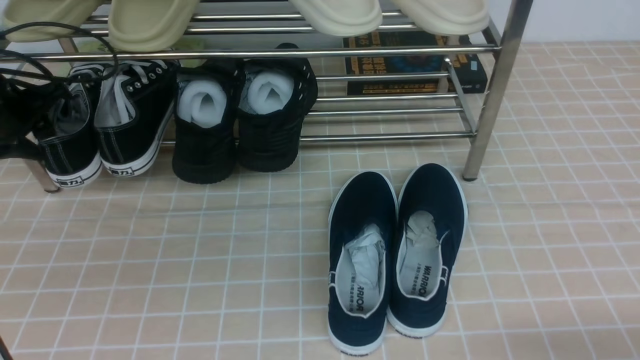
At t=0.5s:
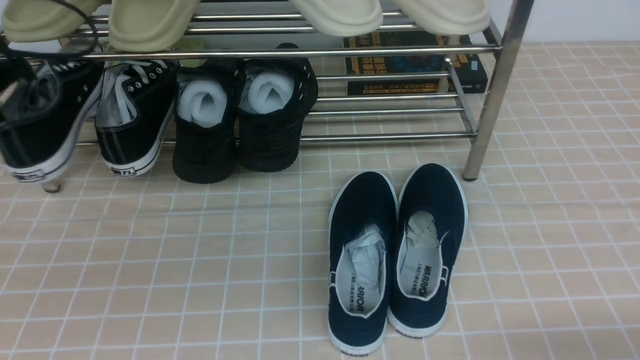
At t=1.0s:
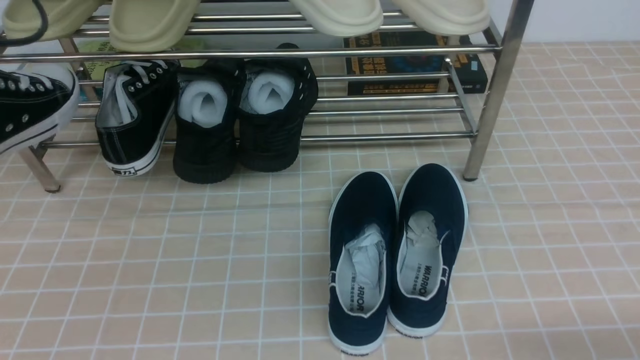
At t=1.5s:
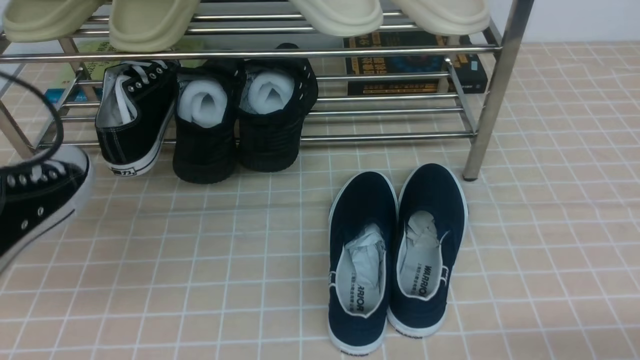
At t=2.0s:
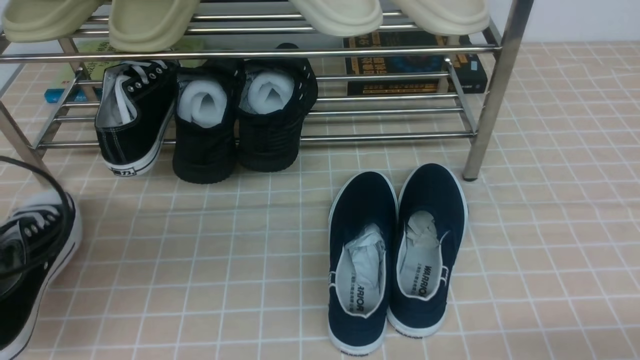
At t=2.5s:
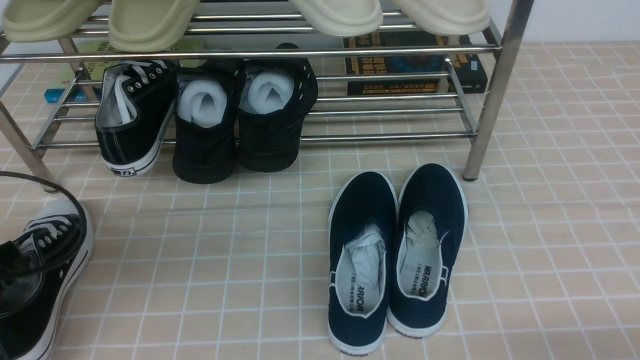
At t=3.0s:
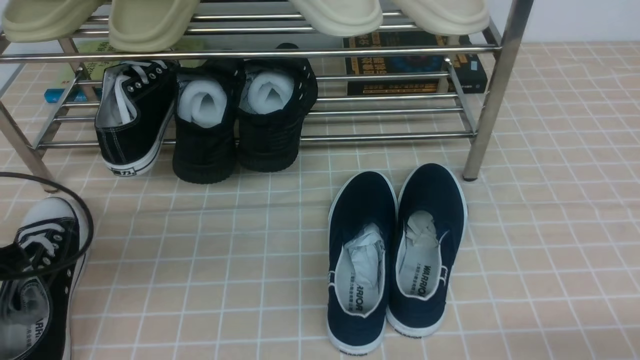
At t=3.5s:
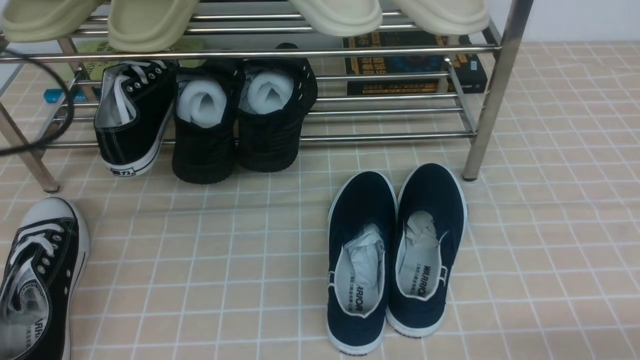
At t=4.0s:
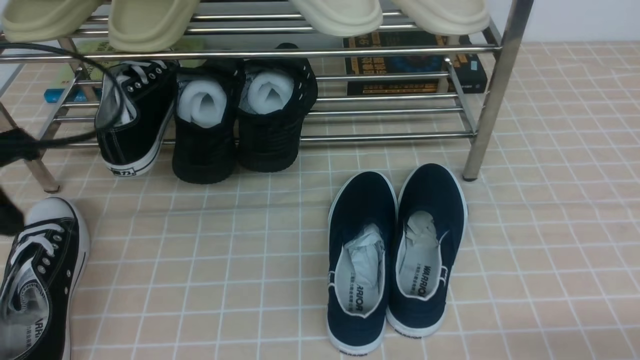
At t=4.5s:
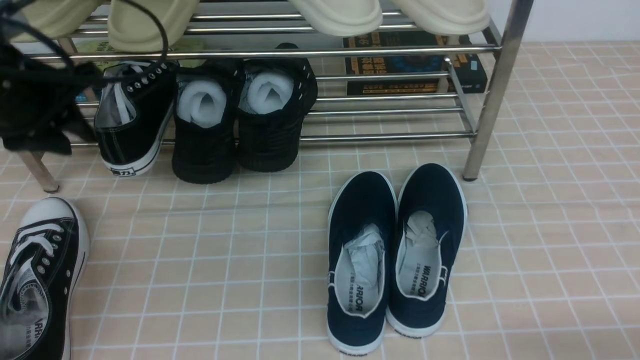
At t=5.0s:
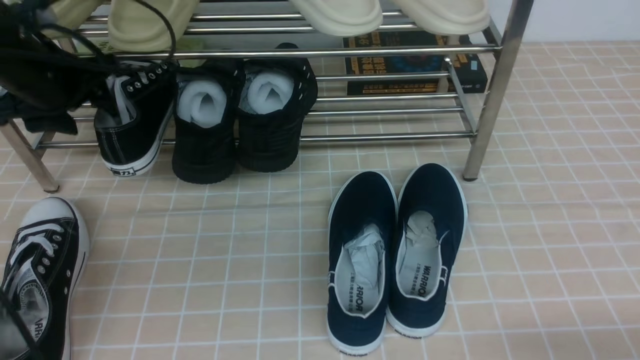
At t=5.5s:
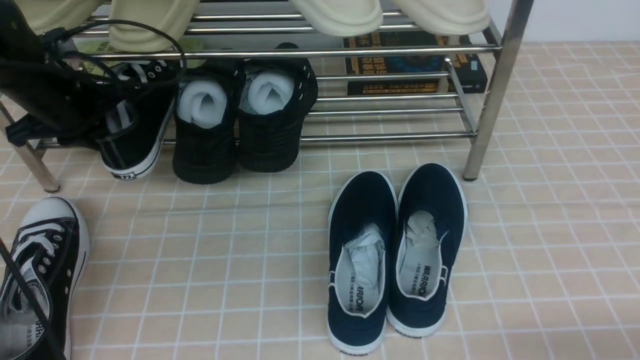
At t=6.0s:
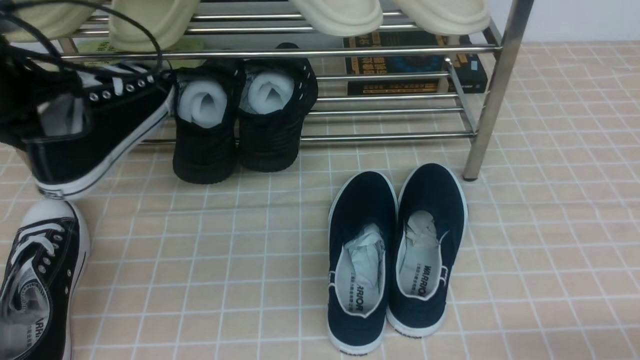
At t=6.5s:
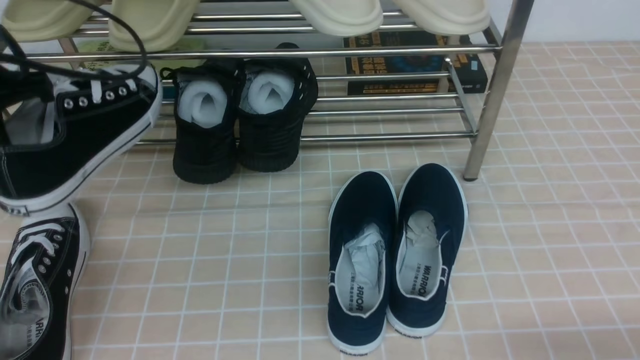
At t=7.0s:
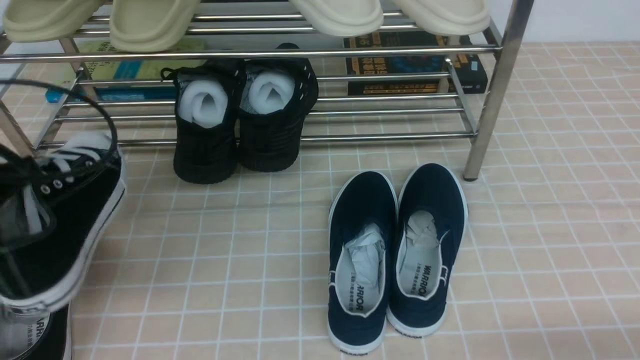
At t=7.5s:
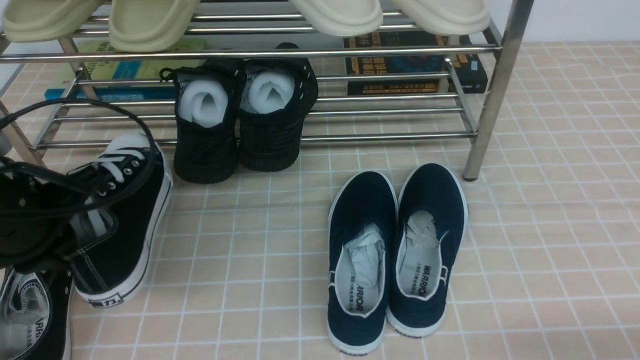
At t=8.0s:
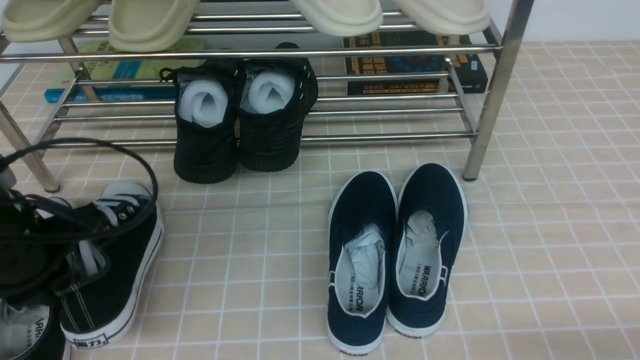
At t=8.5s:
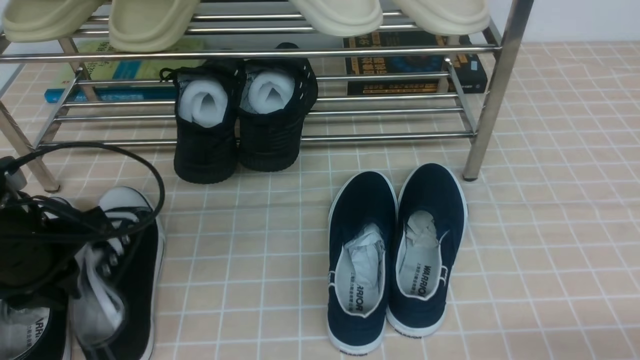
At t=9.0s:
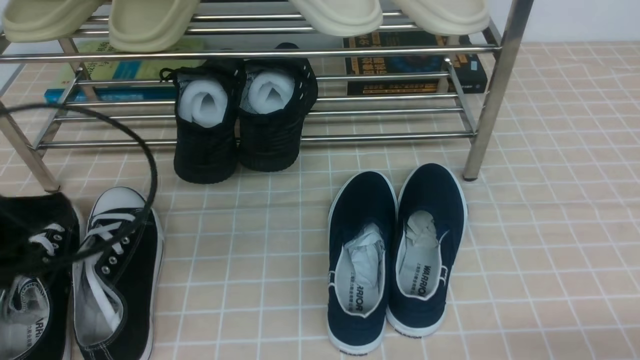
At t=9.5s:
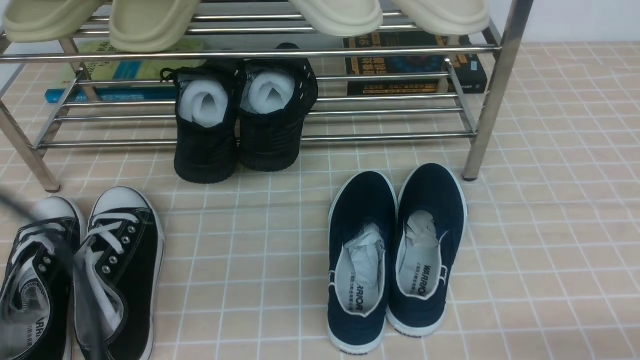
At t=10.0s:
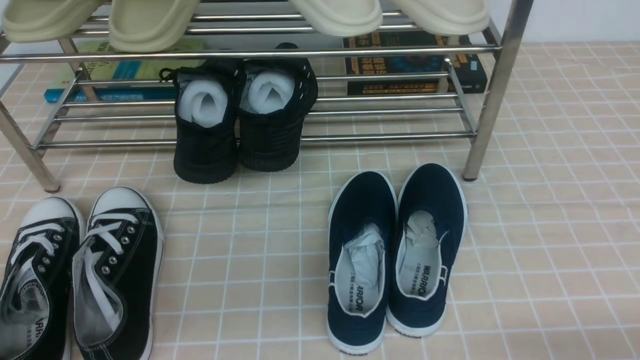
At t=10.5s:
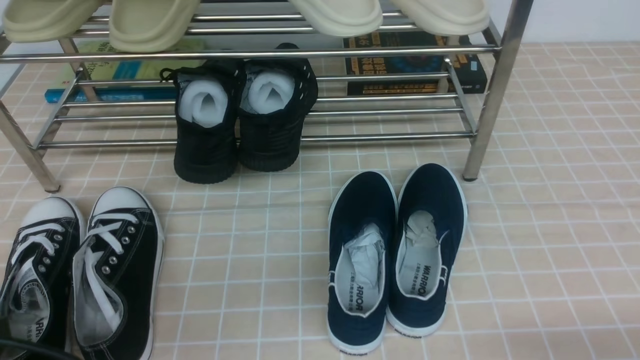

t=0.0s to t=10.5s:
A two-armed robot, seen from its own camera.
Step, t=0.5s to t=3.0s: Use your left arm to remove the clamped shoe from the shoe rack and put it down.
Step, t=3.5s to t=5.5s: use the left arm to clamp a shoe on the left side of the shoe rack.
Step, t=6.0s to t=8.5s: Use your left arm to remove the clamped shoe from the shoe rack and put it down.
t=0.0s to t=2.0s: The left gripper is displaced backward by roughly 20 cm, and closes up.
t=2.0s to t=4.0s: The left gripper is displaced upward and forward by some 10 cm, and opens, then closes again.
t=4.0s to t=6.5s: The left gripper goes forward and returns, about 15 cm each way, and opens, then closes once more.
t=6.5s to t=8.5s: The left gripper travels downward and backward by some 15 cm.
t=8.5s to t=10.5s: The left gripper goes some 20 cm backward.

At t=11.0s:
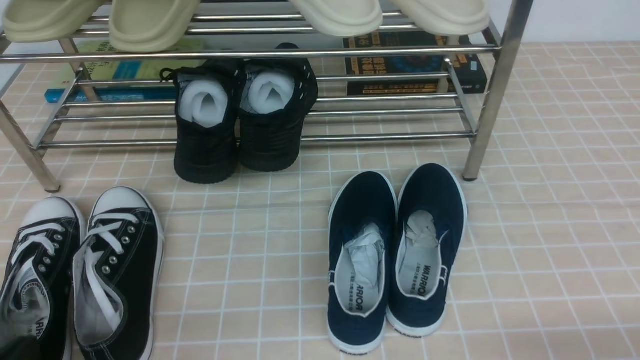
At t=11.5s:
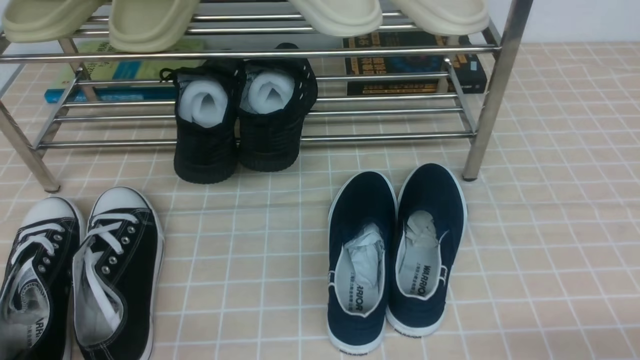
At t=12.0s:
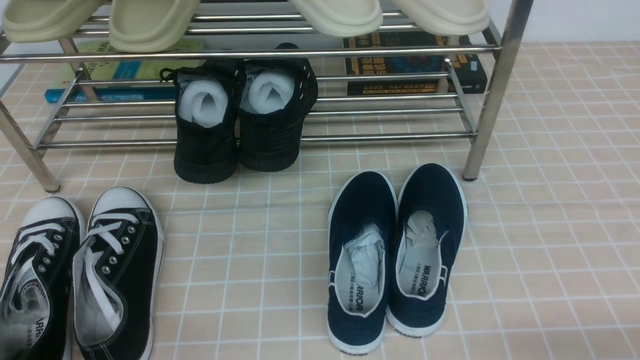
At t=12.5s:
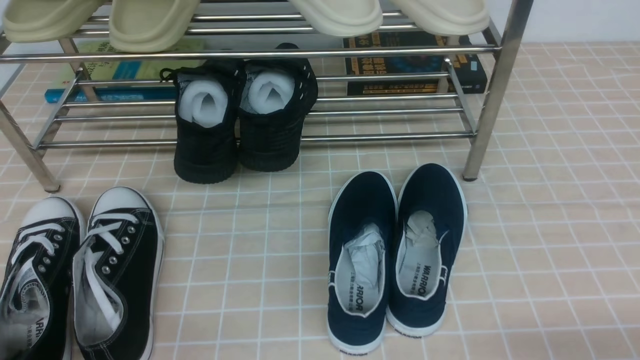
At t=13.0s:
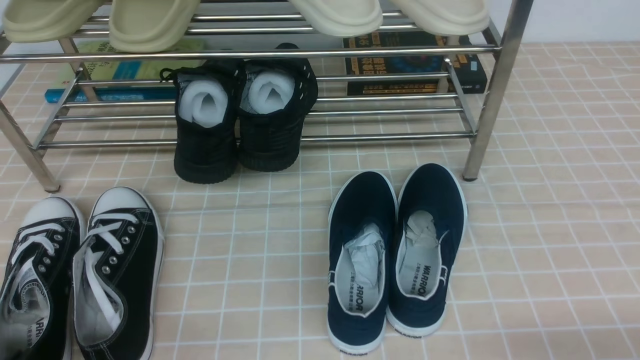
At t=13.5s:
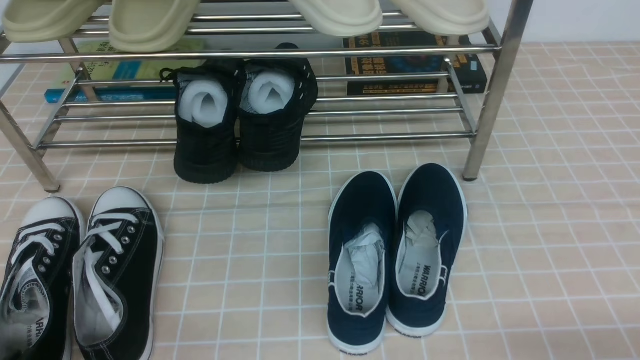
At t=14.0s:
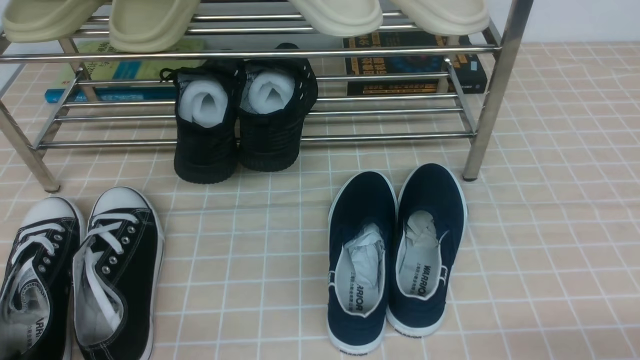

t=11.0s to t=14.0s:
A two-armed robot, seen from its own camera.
t=12.5s to t=14.0s: Both grippers stay about where they are.

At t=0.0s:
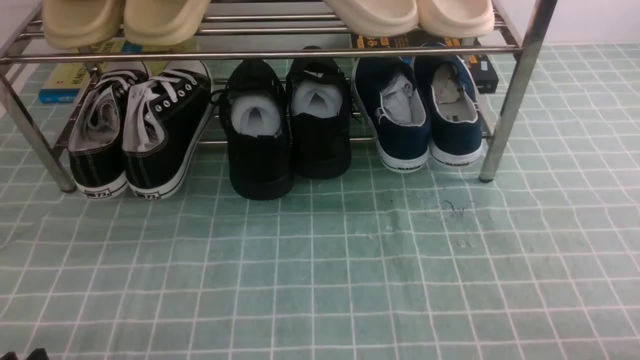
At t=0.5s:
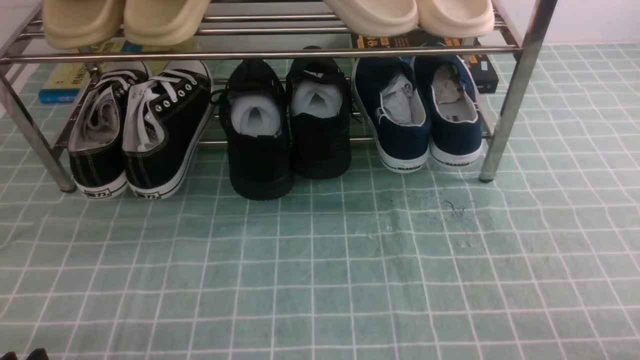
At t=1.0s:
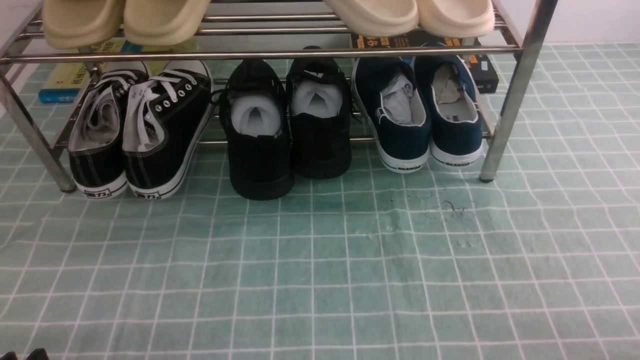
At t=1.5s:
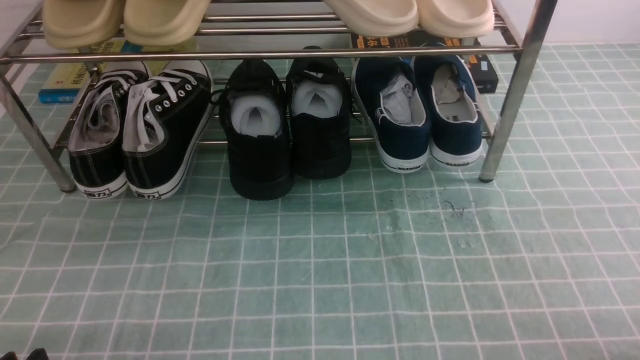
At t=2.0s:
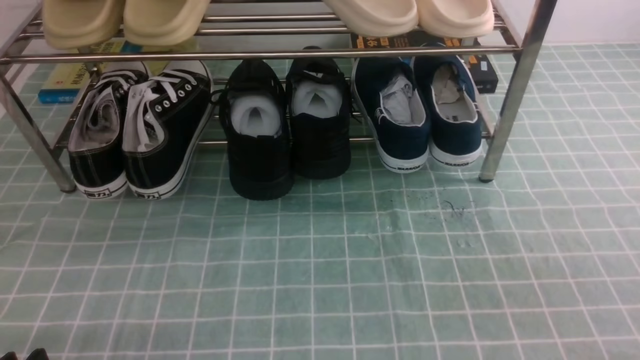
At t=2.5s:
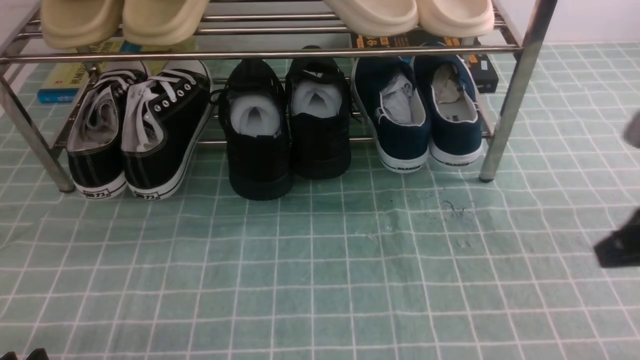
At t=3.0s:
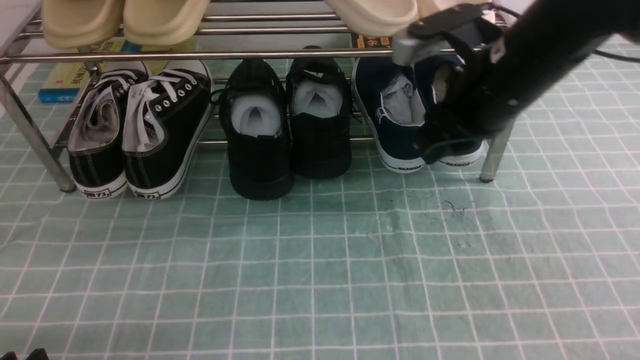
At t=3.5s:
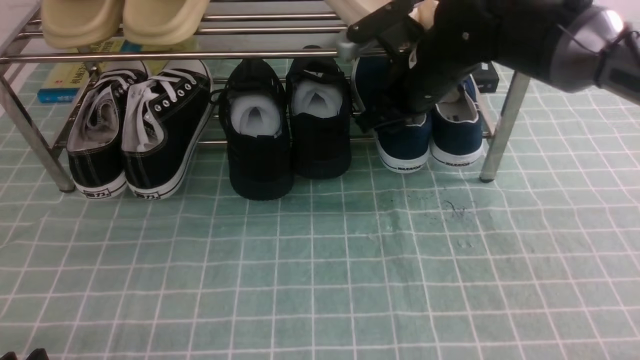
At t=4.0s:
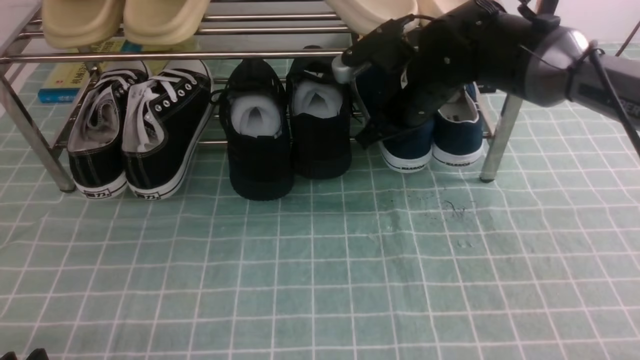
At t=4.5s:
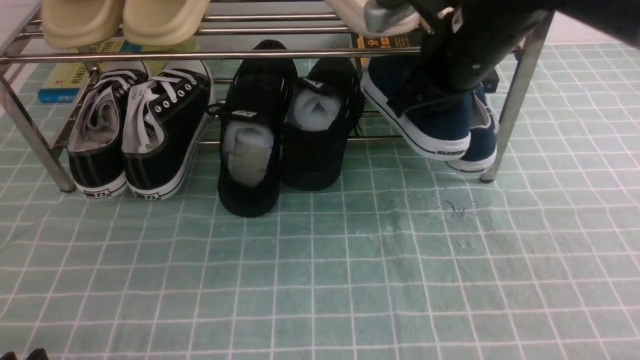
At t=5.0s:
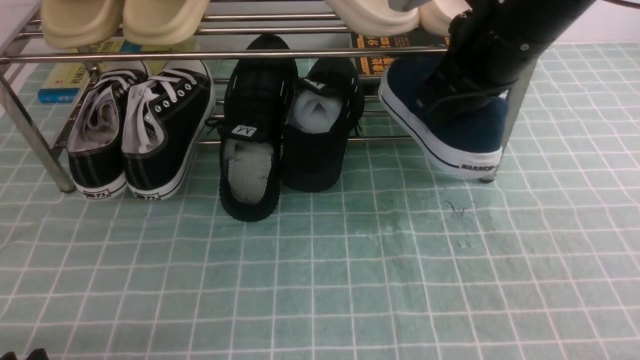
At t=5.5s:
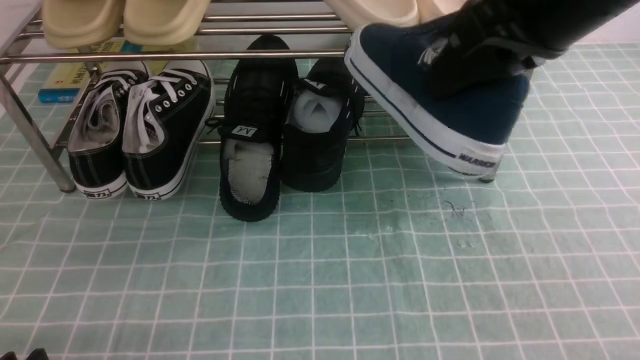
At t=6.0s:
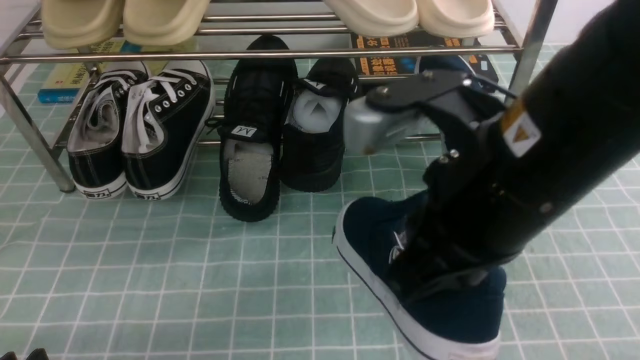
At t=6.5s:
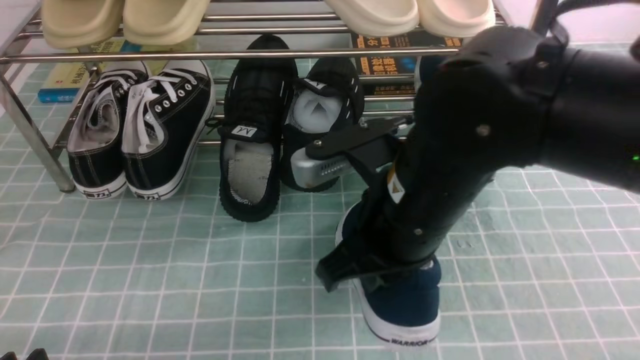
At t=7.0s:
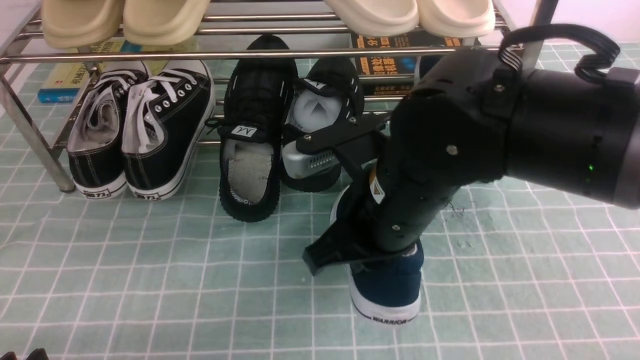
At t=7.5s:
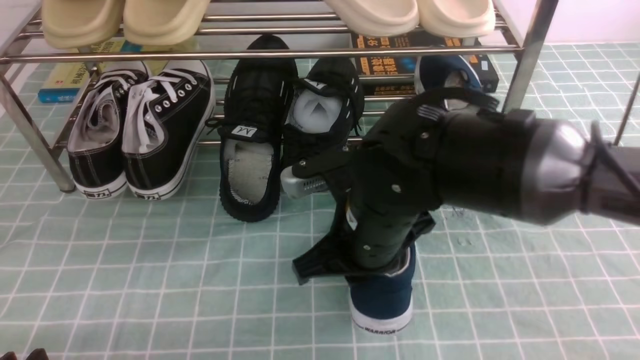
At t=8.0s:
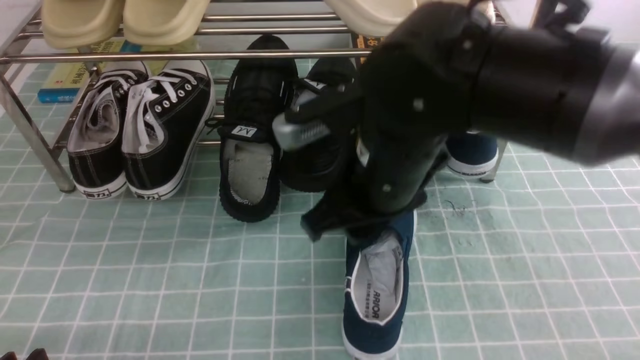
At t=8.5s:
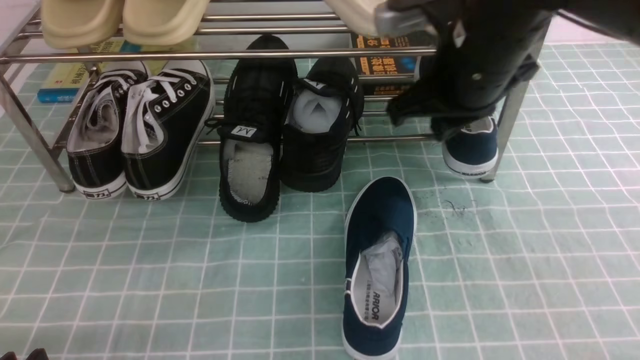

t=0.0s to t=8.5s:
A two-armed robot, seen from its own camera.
Step, t=0.0s to t=3.5s: use the right arm to clamp a shoe on the right side of the shoe rack.
Step, t=4.0s to t=7.5s: use the right arm to take out the clamped shoe from the shoe rack and put it down.
t=2.0s to t=4.0s: The right gripper moves forward and to the left, approximately 40 cm, and opens and closes again.
t=4.0s to t=6.5s: The right gripper moves backward, approximately 20 cm.
t=6.5s to t=8.5s: The right gripper shifts about 15 cm forward and to the right.
